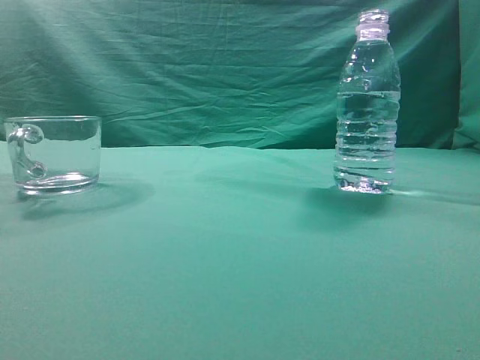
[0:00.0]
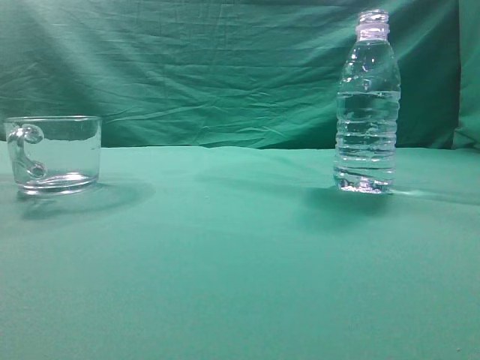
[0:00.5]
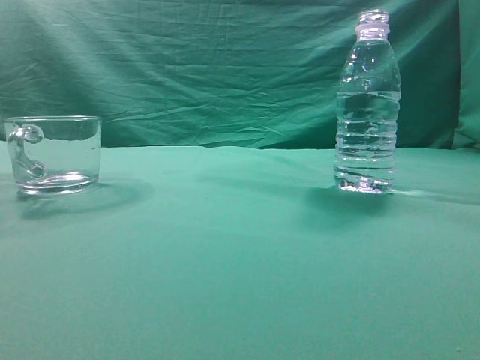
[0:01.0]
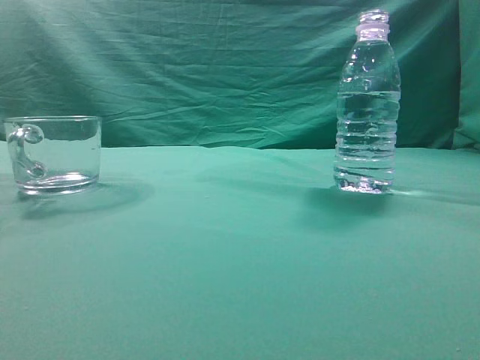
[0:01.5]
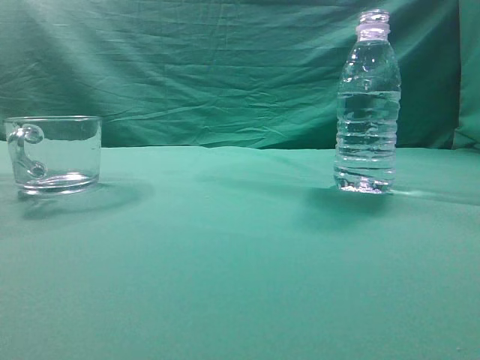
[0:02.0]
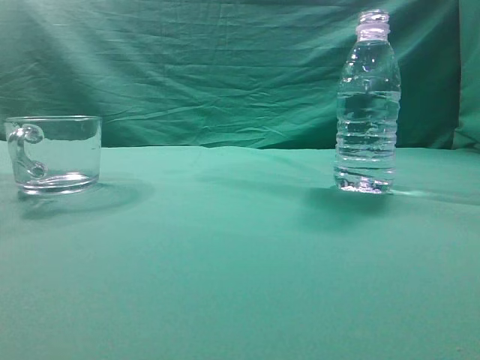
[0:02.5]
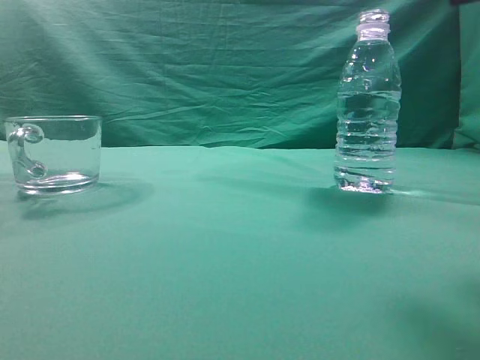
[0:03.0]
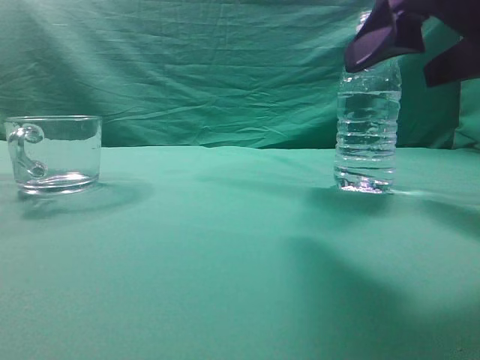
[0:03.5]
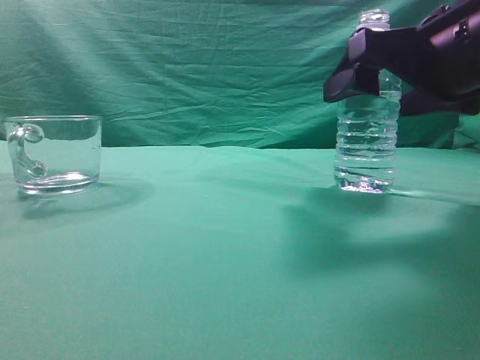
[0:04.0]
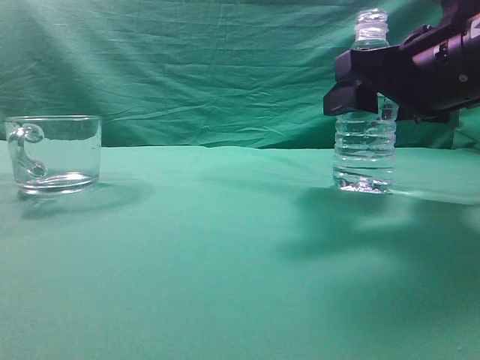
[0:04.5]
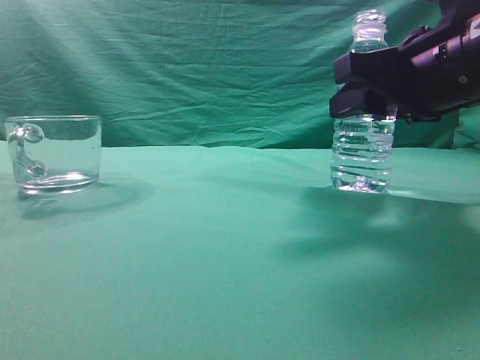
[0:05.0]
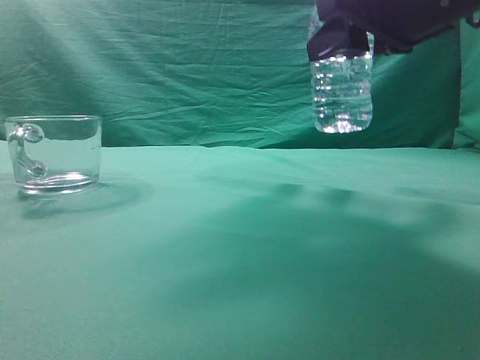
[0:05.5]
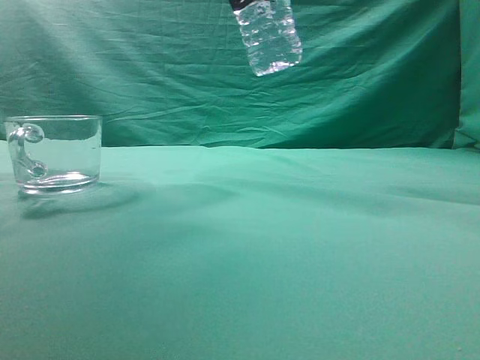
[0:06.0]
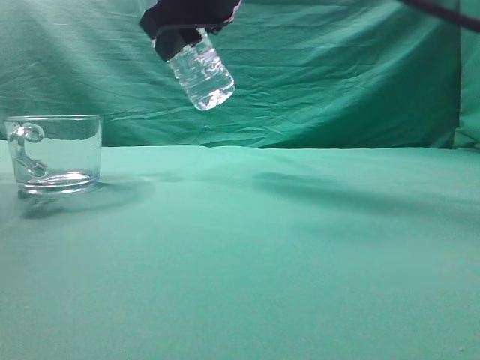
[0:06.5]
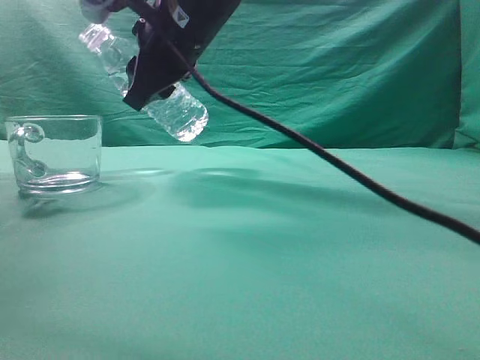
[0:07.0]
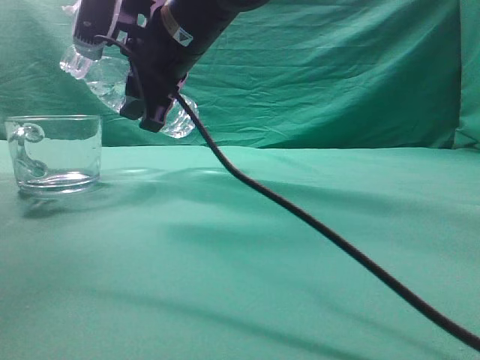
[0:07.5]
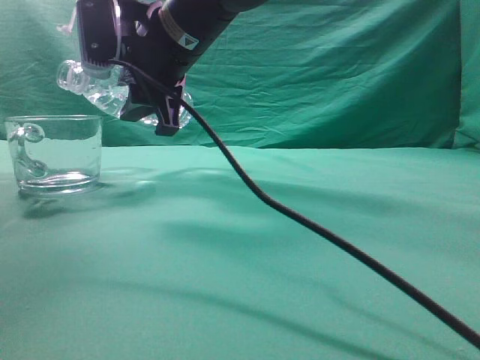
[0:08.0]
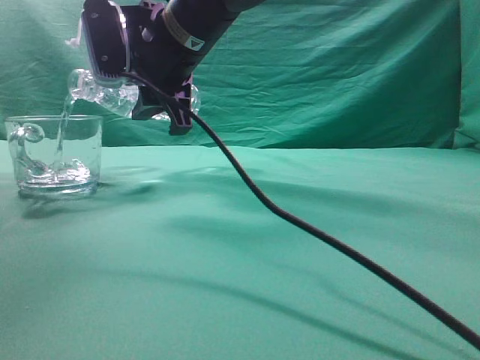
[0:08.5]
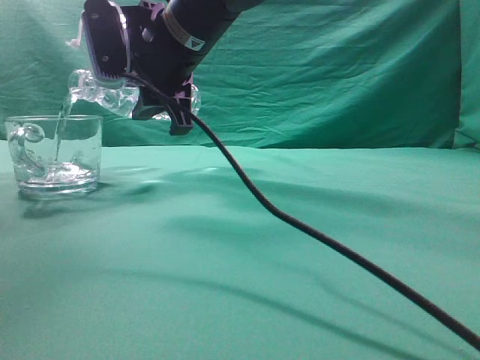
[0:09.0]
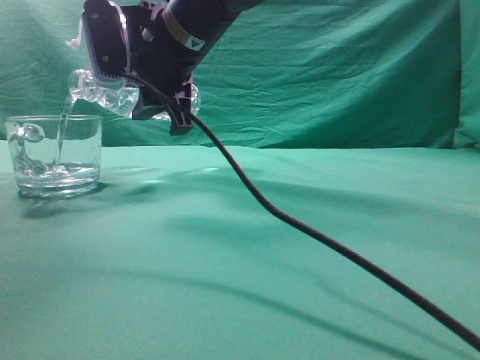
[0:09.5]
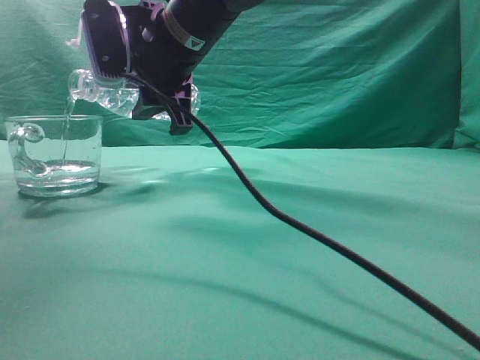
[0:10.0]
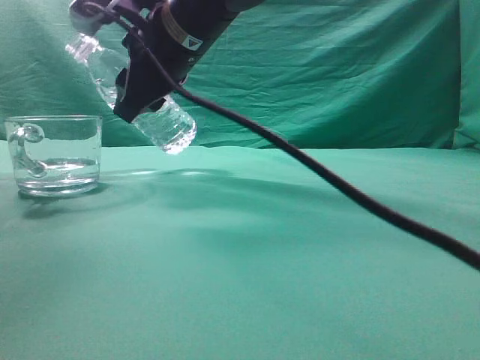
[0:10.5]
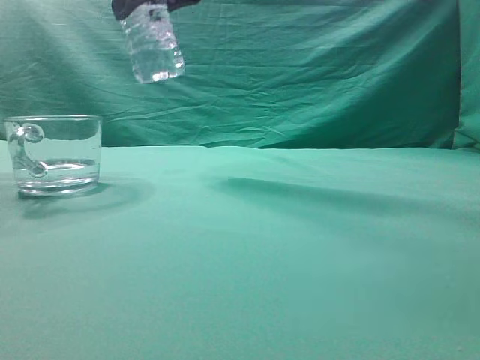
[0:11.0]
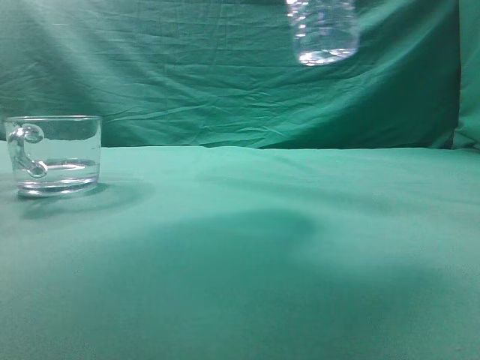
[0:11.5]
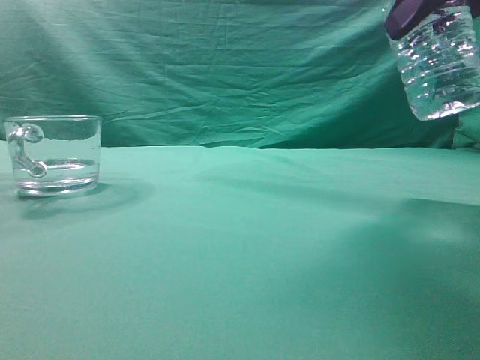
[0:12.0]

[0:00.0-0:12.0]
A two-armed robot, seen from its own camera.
Task of the whole recording: pick up the water bottle and pour the water in it into the glass.
Step, 0:00.0 to 0:05.0: Grasp the mineral water bottle.
Step, 0:05.5 to 0:10.5: Pour water into the teacup.
0:02.0 to 0:04.0: The right gripper moves forward, to the left and downward, some 25 cm, and opens.
0:04.0 to 0:06.0: The right gripper goes roughly 15 cm upward, to the left and forward, and closes up.
0:06.0 to 0:08.0: The right gripper is displaced to the left, downward and forward by some 15 cm.
0:08.0 to 0:10.0: There are only small adjustments of the grippers.
0:10.0 to 0:12.0: The right gripper goes about 30 cm to the right and backward.

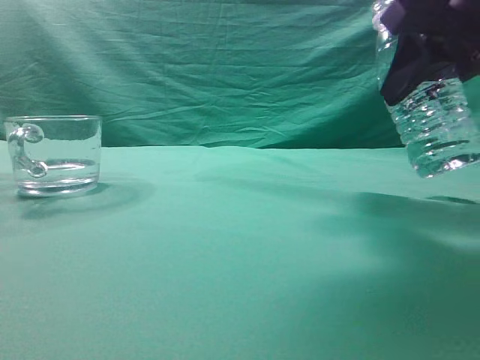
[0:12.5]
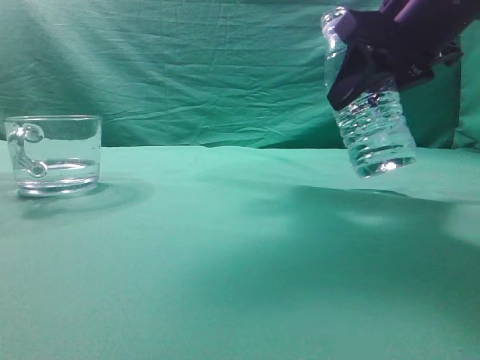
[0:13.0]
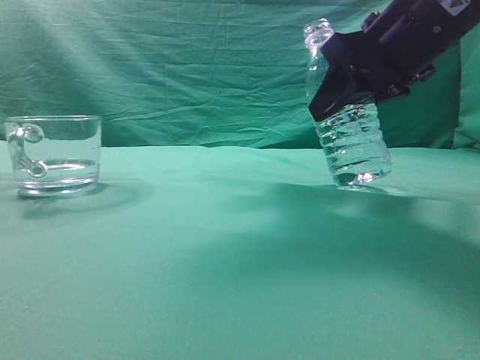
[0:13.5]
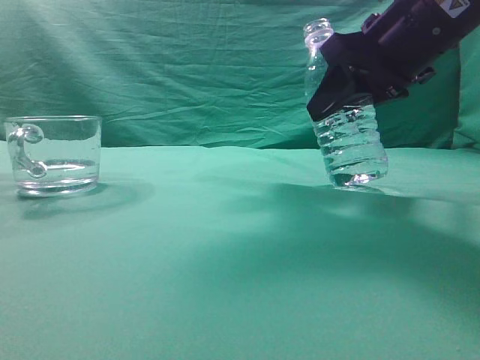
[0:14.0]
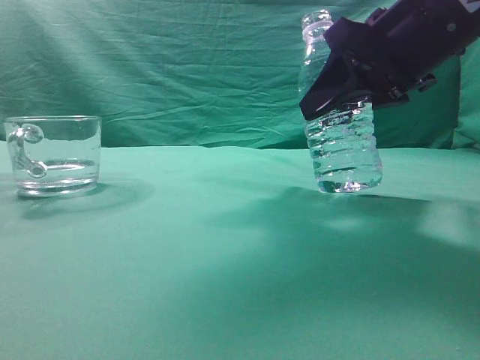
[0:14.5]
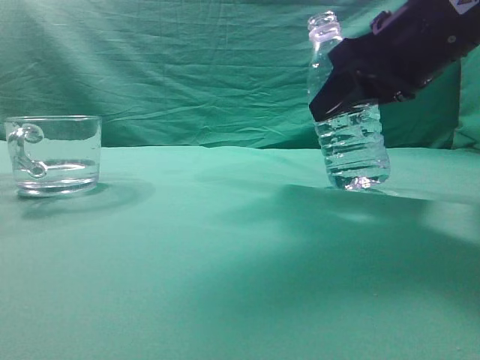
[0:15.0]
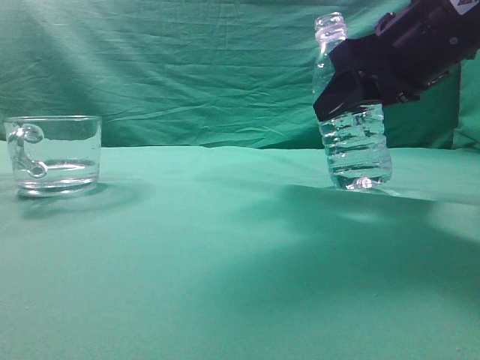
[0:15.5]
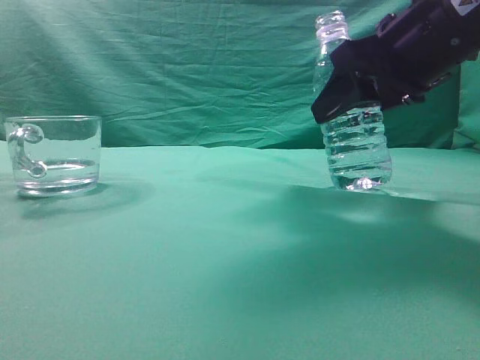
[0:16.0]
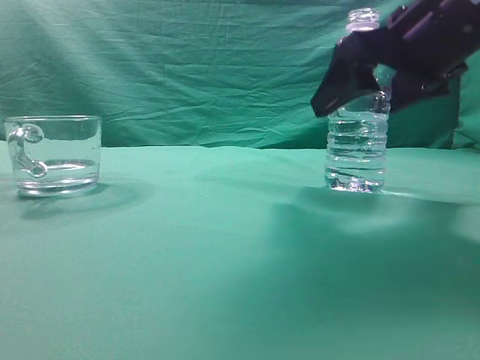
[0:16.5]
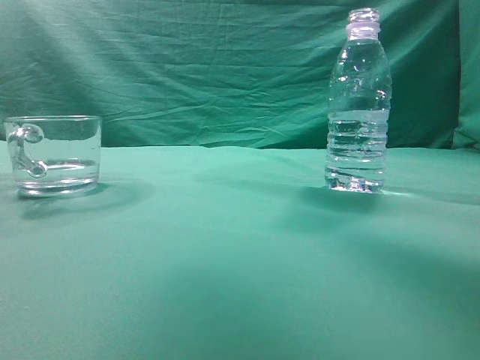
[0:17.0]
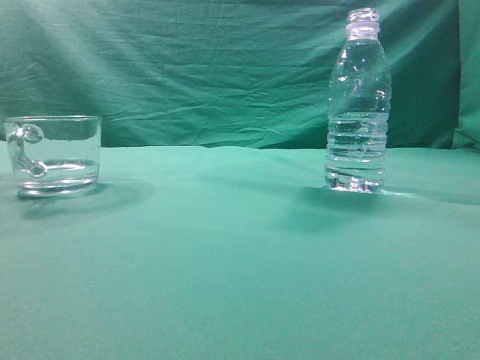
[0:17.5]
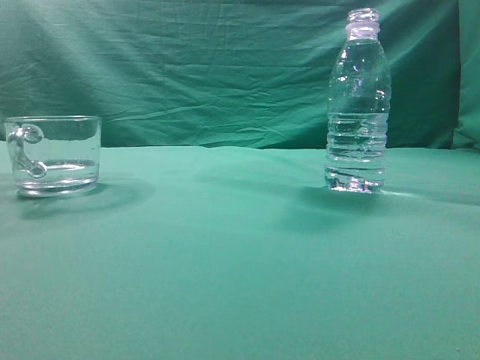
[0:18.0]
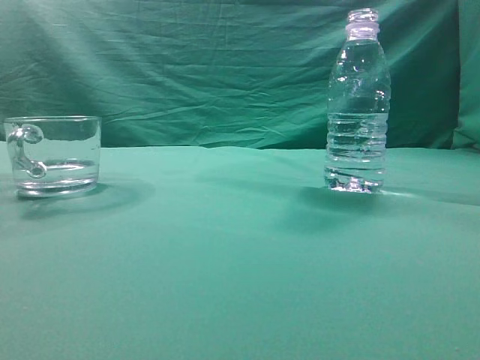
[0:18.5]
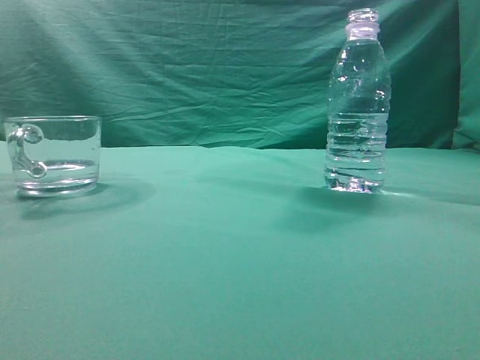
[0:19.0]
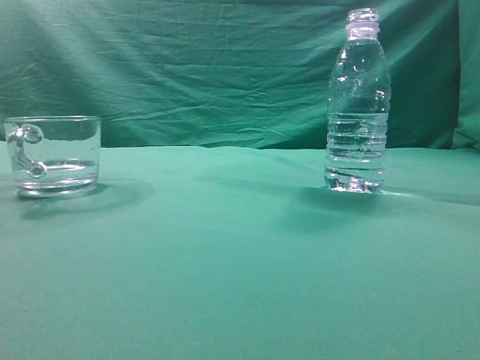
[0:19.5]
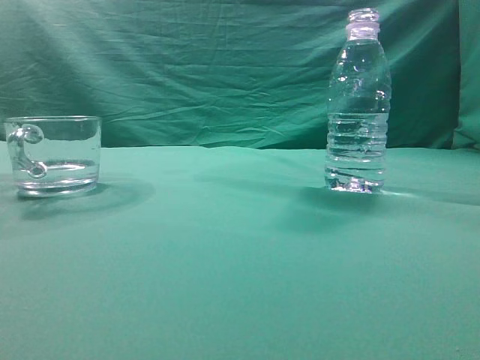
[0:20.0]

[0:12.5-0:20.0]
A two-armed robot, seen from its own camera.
Task of the whole recording: pick up the water bottle and pour the water in it into the glass.
0:12.5 to 0:14.5: The right gripper ends up roughly 5 cm from where it was.
0:14.5 to 0:16.5: The right gripper opens its fingers.
0:16.5 to 0:18.0: The right gripper goes about 30 cm upward and backward, and closes.
